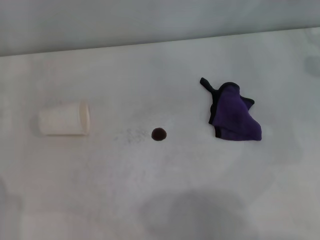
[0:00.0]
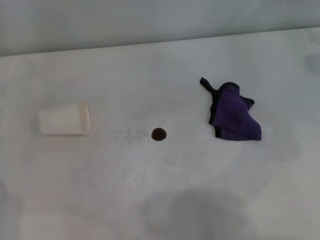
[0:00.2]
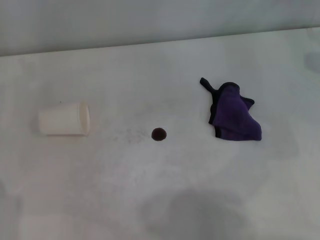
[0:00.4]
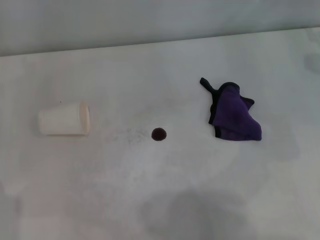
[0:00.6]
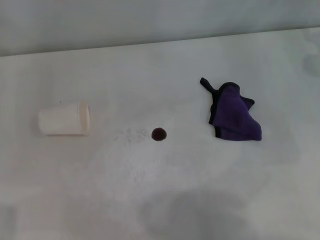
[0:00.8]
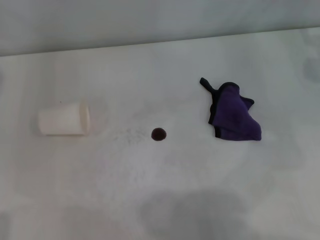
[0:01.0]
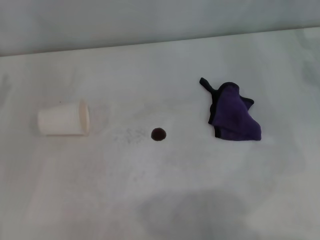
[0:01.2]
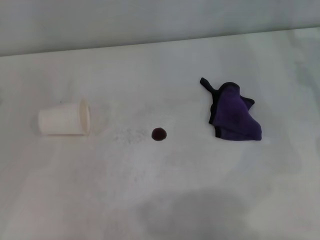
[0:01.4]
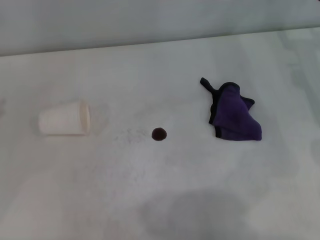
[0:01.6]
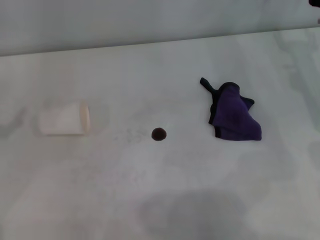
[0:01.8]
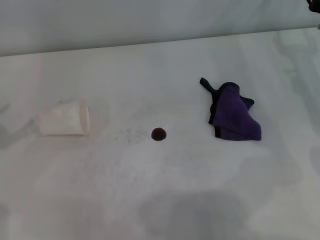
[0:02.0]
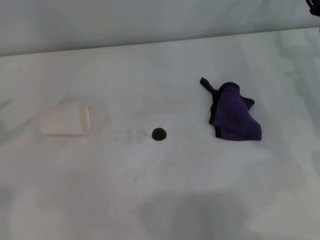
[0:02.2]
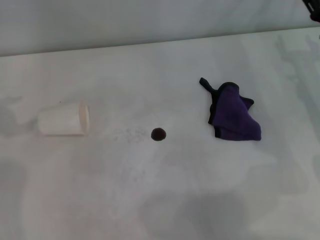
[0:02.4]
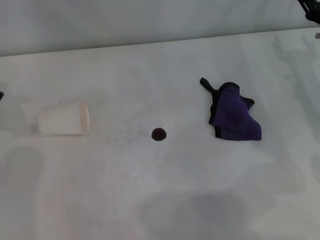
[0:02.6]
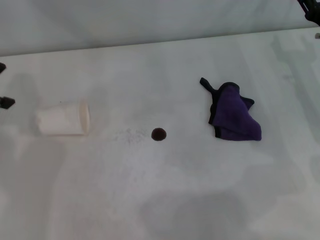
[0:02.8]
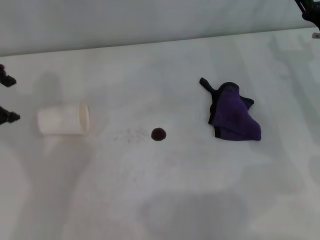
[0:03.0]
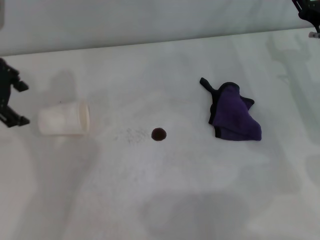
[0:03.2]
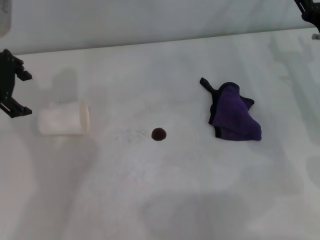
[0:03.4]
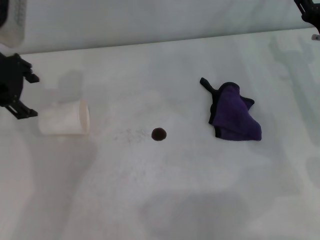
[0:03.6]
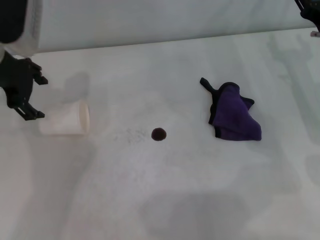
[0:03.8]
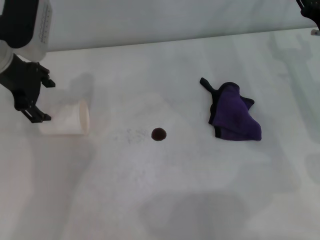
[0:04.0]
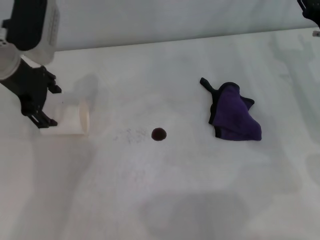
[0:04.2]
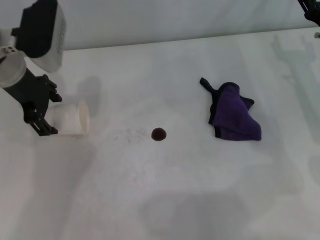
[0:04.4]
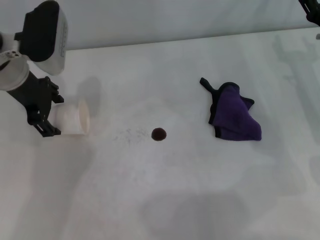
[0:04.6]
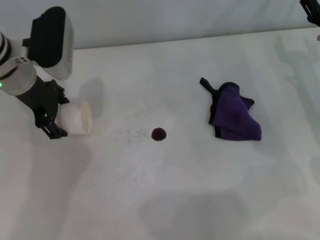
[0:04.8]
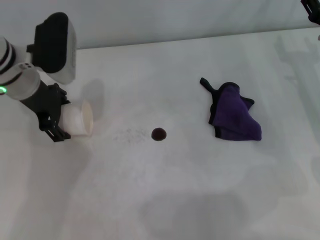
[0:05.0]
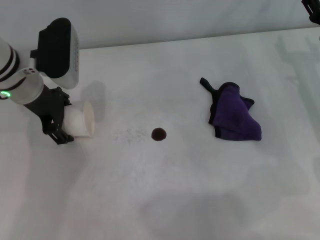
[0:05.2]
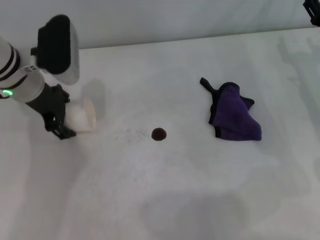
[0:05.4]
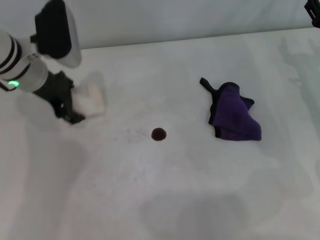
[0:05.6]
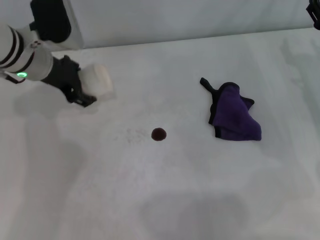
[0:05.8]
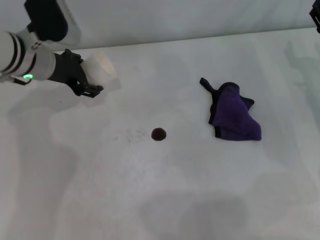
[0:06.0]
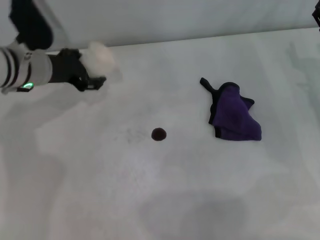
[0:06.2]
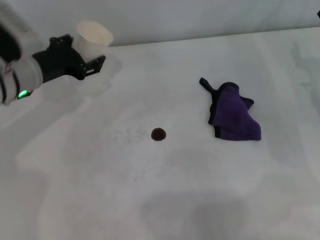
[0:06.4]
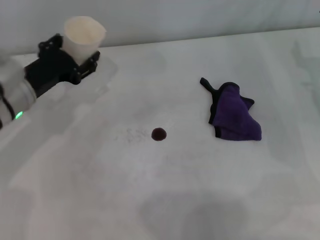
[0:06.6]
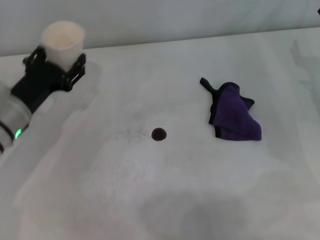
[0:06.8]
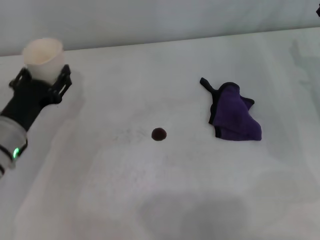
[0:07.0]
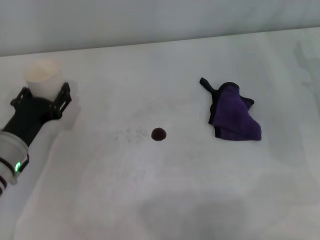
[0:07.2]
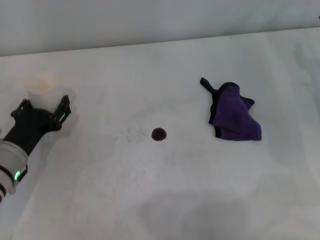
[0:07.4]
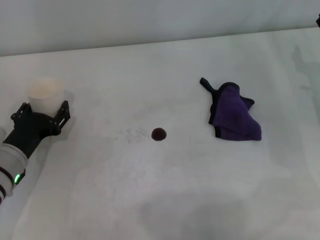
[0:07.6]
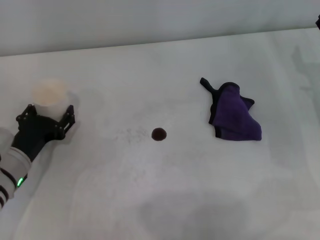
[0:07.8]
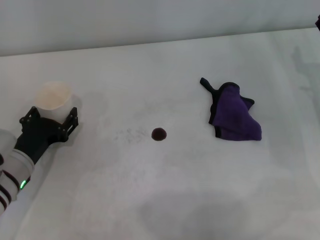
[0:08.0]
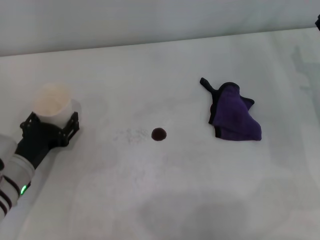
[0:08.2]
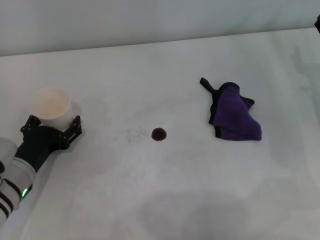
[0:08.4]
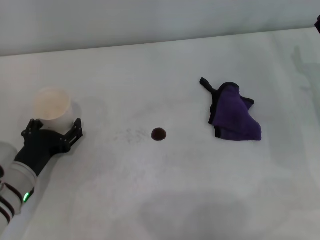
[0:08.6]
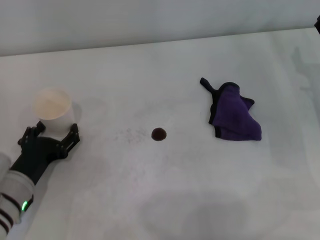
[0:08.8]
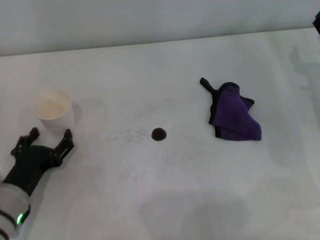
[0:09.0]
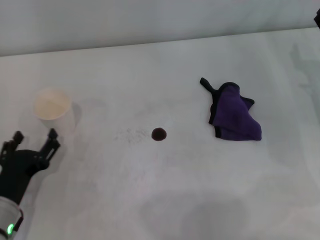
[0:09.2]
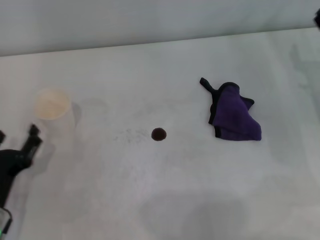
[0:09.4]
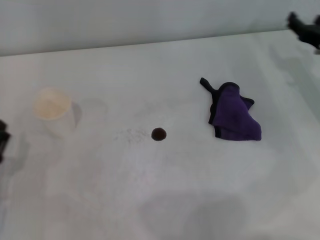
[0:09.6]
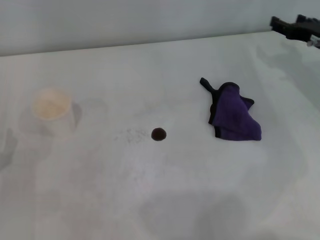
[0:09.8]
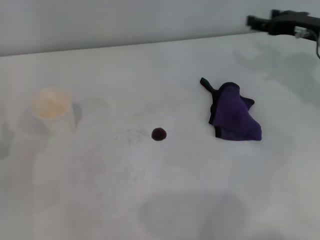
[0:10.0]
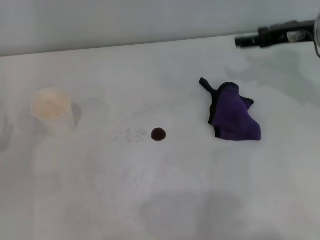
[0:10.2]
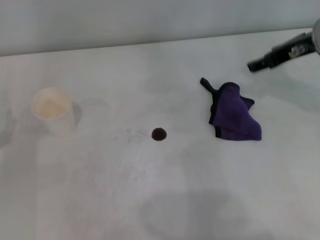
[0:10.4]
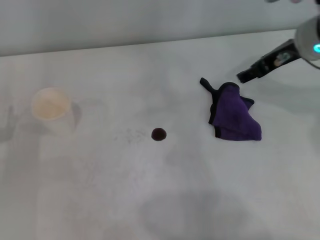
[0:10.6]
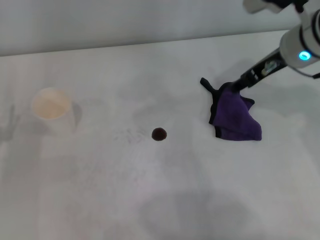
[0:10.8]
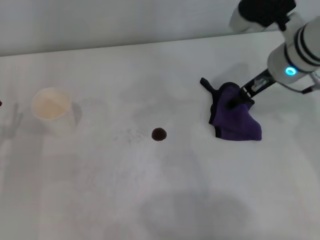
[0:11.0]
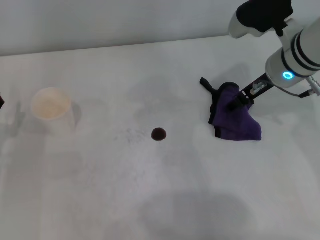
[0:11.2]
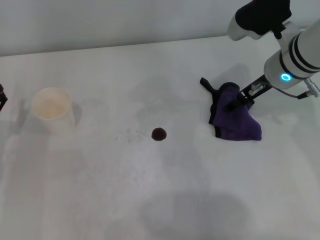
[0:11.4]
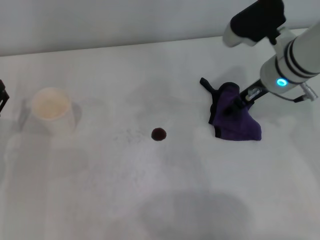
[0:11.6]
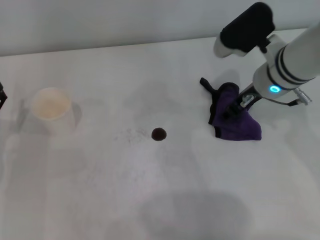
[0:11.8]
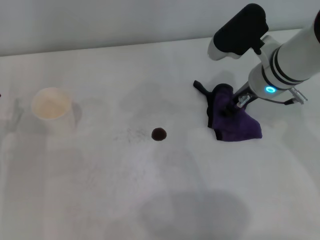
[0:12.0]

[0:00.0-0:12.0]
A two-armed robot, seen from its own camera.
Step, 0:00.0 to 0:05.2: Grasp the paper cup with the left gripper.
Step, 0:05.4 to 0:08.4: Stand the paper cup upright with the left gripper.
0:01.6 to 0:03.0: The left gripper shifts roughly 20 cm upward, forward and to the right.
0:03.0 to 0:04.4: The left gripper goes roughly 10 cm to the right and downward, and closes.
0:04.4 to 0:06.0: The left gripper closes.
0:06.0 to 0:07.6: The left gripper is displaced backward and downward by about 20 cm.
0:07.6 to 0:09.0: The left gripper goes some 5 cm backward, and opens.
0:09.0 to 0:10.4: The right gripper heads upward and to the left, covering roughly 15 cm; the left gripper goes approximately 5 cm to the left.
0:10.4 to 0:12.0: The right gripper travels to the left and downward by approximately 10 cm.

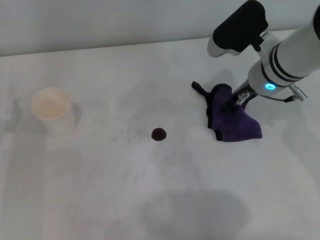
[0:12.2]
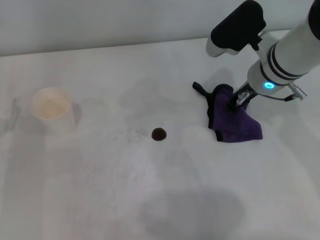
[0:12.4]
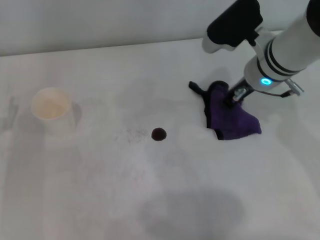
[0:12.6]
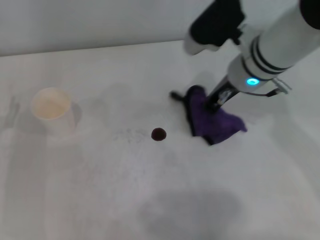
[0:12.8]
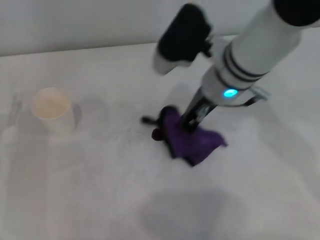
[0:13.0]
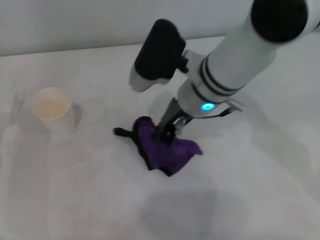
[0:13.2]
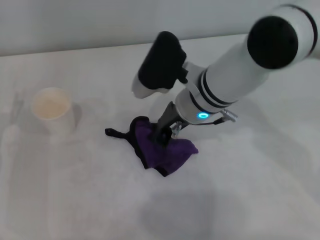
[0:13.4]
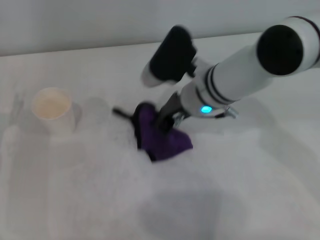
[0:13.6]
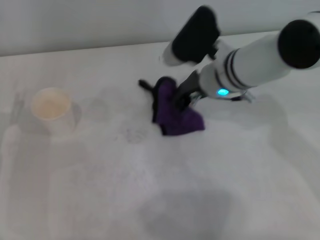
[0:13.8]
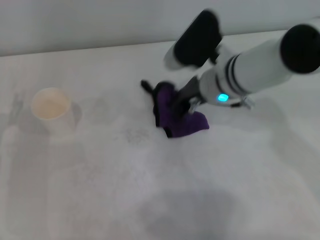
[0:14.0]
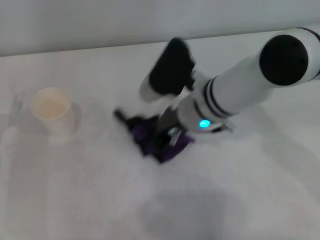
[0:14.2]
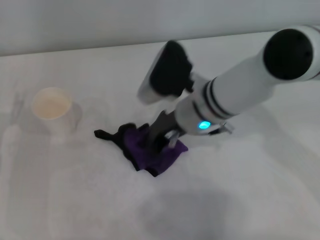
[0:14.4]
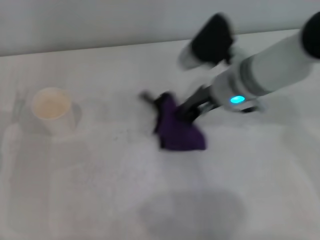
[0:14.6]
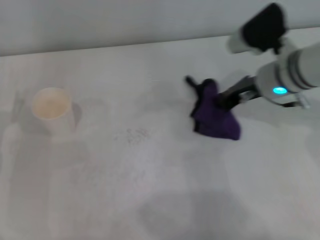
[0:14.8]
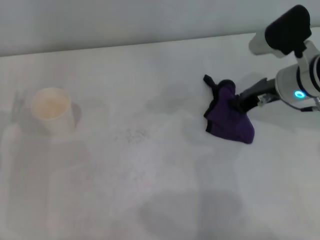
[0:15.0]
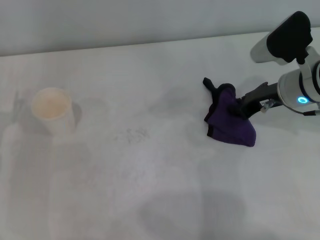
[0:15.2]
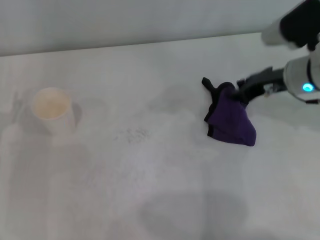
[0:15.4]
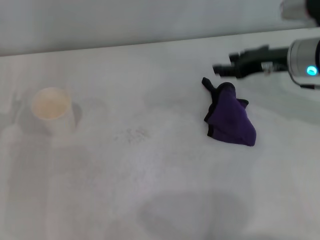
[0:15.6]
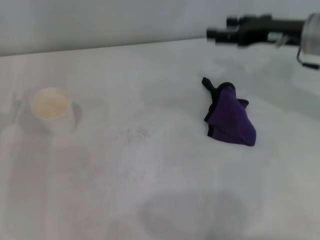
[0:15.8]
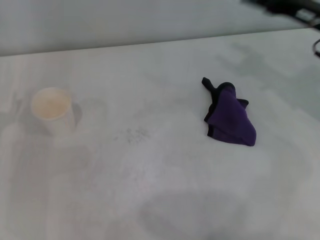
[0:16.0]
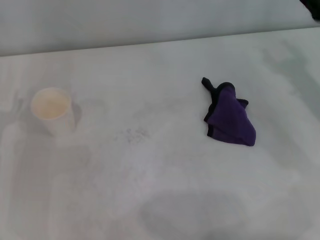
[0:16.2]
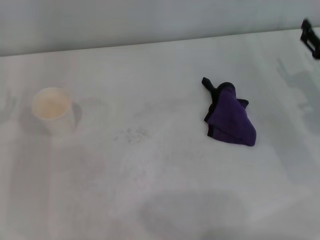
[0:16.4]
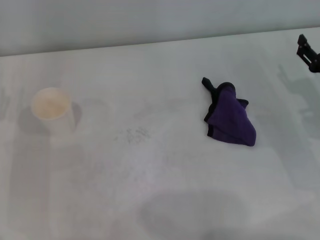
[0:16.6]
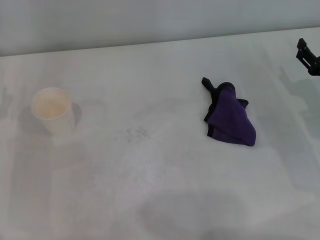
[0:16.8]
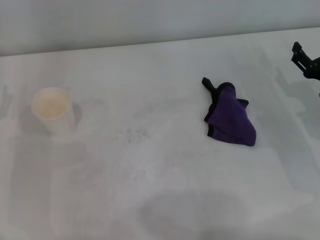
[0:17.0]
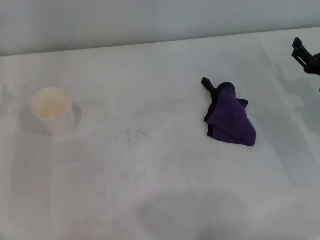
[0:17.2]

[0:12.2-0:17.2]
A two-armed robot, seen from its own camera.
Step, 0:12.6 to 0:14.2: Wipe the stains off the table with the right gripper.
Step, 0:14.4 to 0:15.0: Place the rag on the table with the right gripper.
0:12.2 to 0:13.8: The right gripper is displaced to the left by approximately 5 cm, and closes its fingers.
0:13.8 to 0:15.6: The right gripper heads to the right, covering some 15 cm, and opens up.
0:15.6 to 0:17.2: The right gripper moves downward, to the right and backward, about 15 cm, and opens up.
